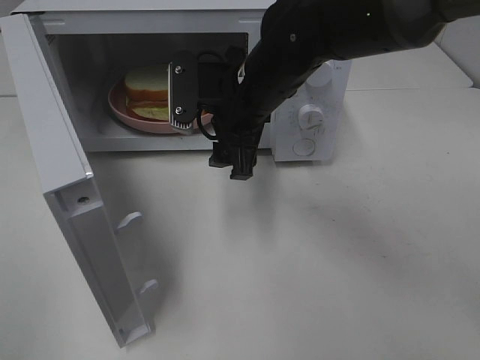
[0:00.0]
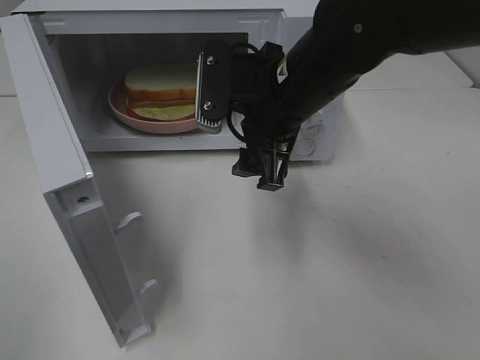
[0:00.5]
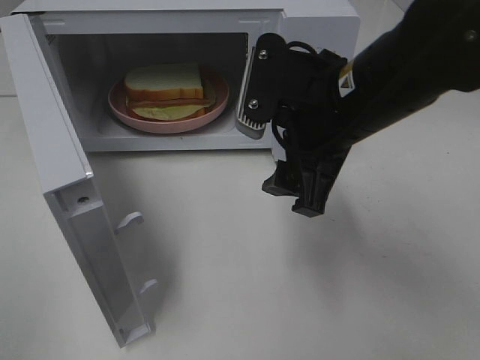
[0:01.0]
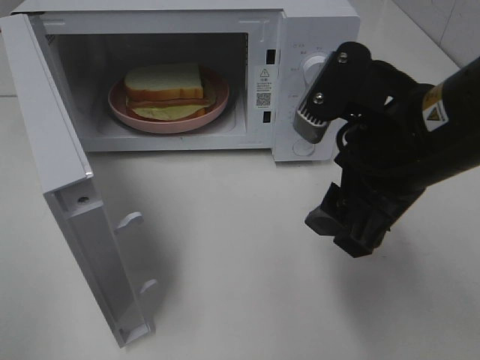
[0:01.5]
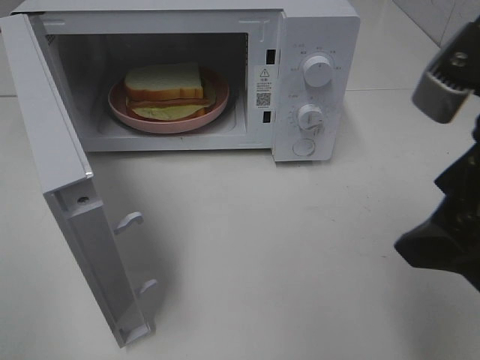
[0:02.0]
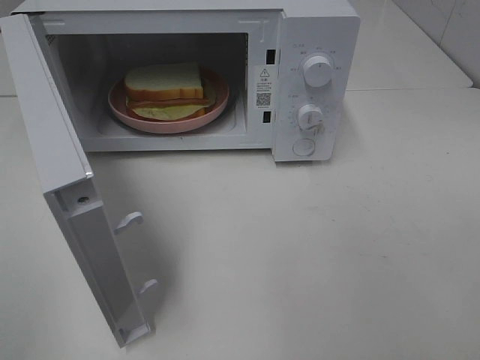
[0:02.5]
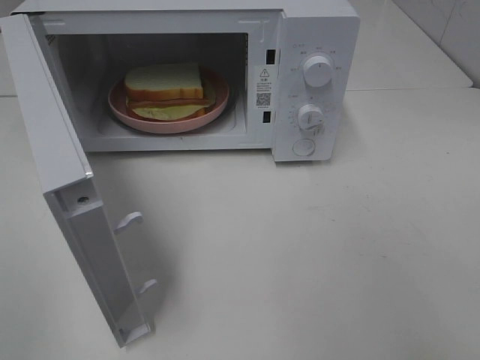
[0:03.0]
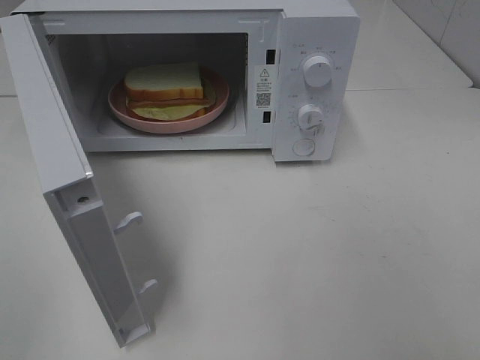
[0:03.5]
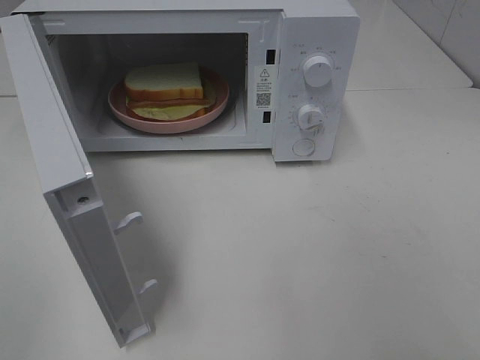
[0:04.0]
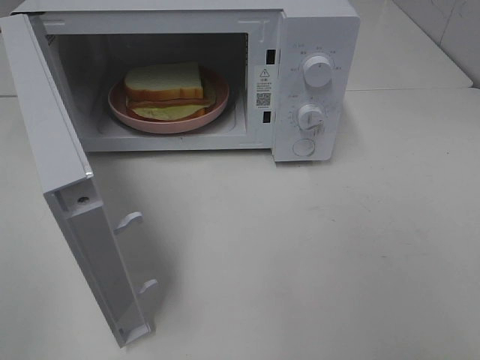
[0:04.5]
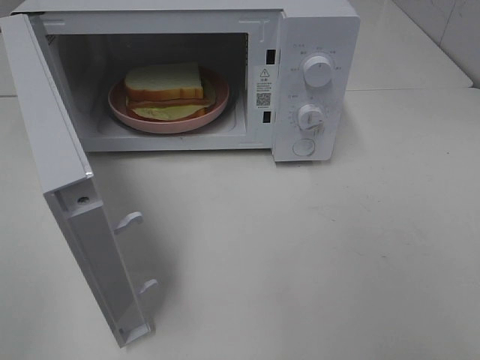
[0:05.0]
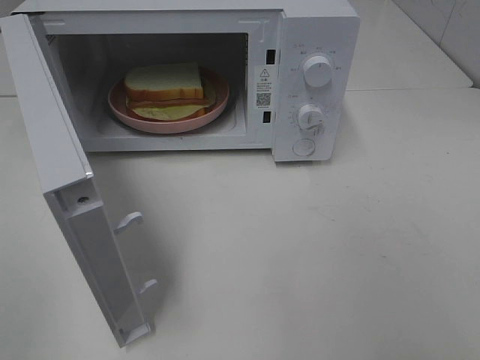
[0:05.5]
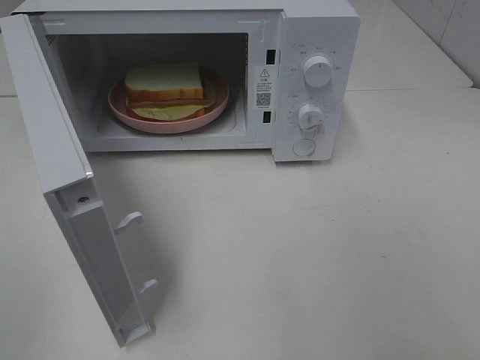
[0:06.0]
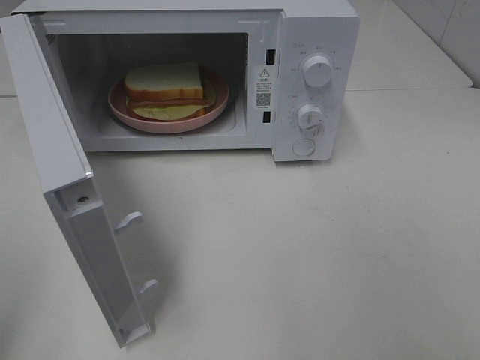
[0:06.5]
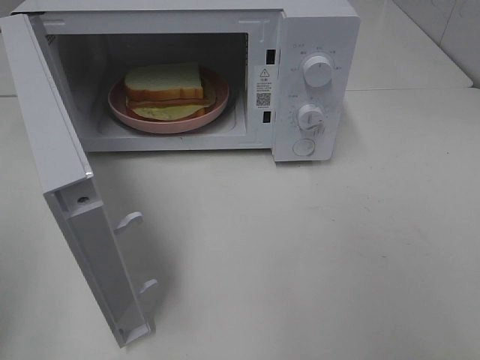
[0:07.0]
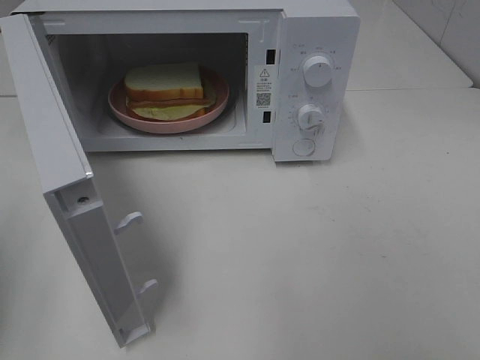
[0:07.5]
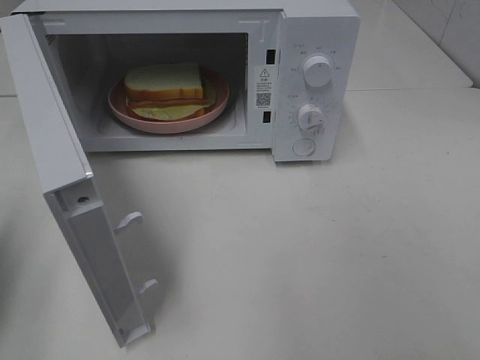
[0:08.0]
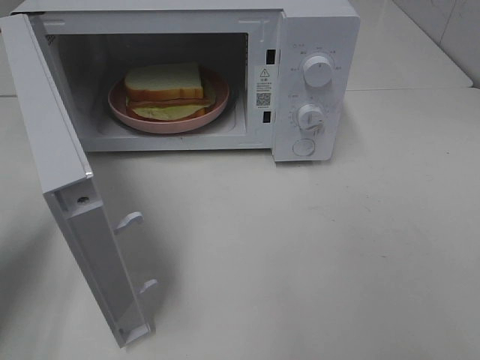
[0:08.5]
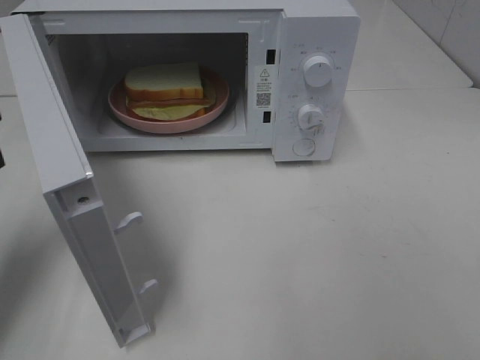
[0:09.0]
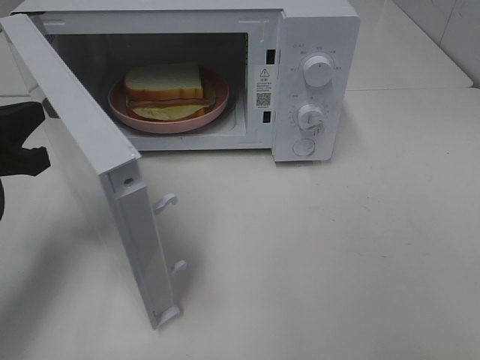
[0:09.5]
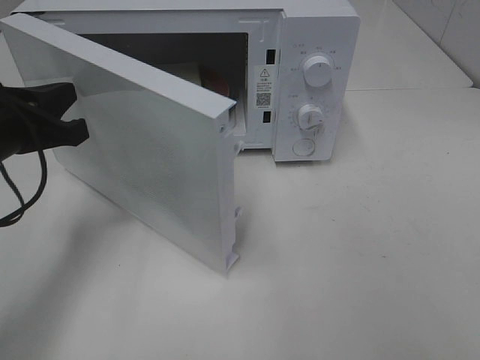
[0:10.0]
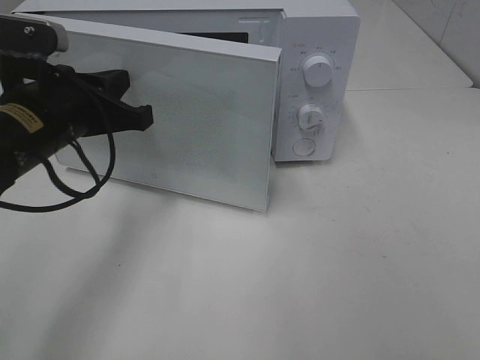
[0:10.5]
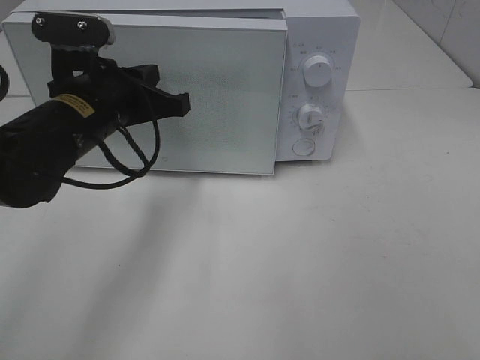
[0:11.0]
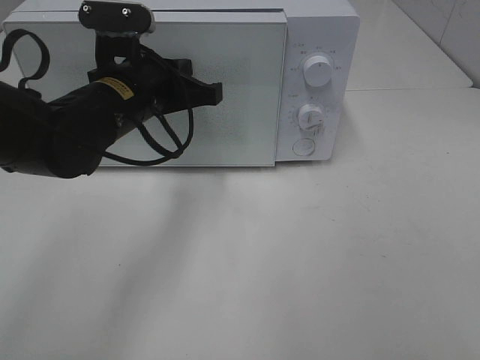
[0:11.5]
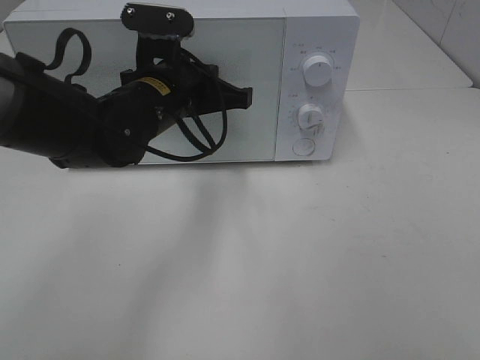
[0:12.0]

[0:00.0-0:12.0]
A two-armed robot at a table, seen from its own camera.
Task of the whole recording: Heat Sandwich.
0:00.0 to 0:02.0: The right gripper moves backward, to the right and upward, approximately 30 cm.
0:02.0 to 0:04.0: The right gripper travels backward and to the right by approximately 20 cm.
0:04.0 to 0:06.0: Both grippers stay about where they are.
0:06.0 to 0:08.0: The left gripper is displaced forward and downward by roughly 20 cm, and closes its fingers.
0:08.0 to 0:10.0: The left gripper goes some 15 cm to the right and forward.
0:10.0 to 0:12.0: The left gripper shifts some 15 cm to the right and forward.

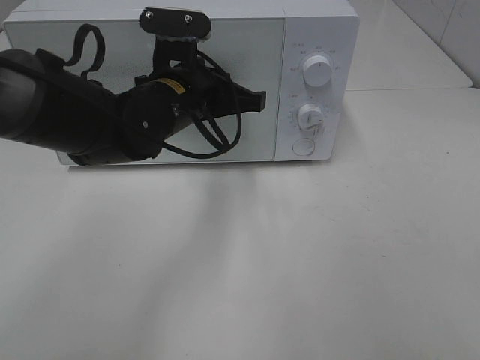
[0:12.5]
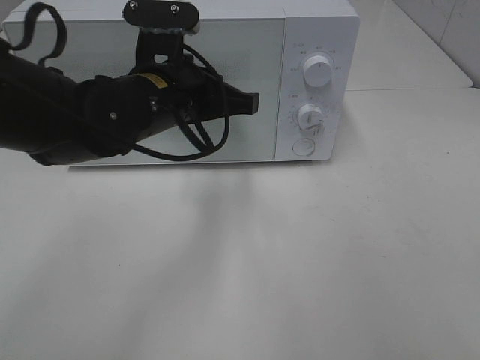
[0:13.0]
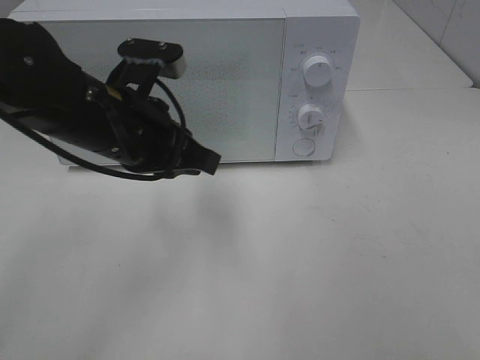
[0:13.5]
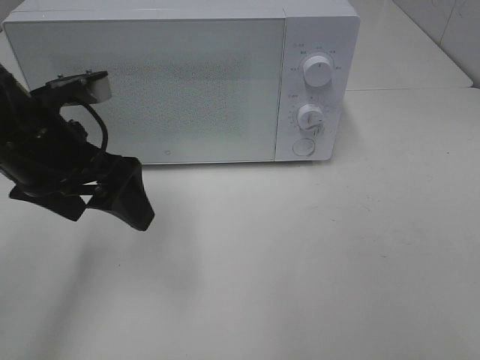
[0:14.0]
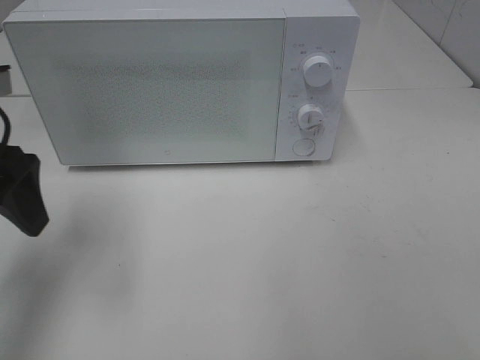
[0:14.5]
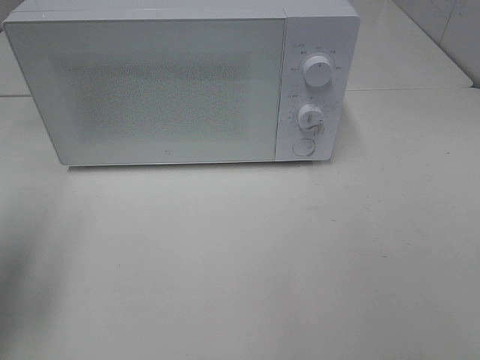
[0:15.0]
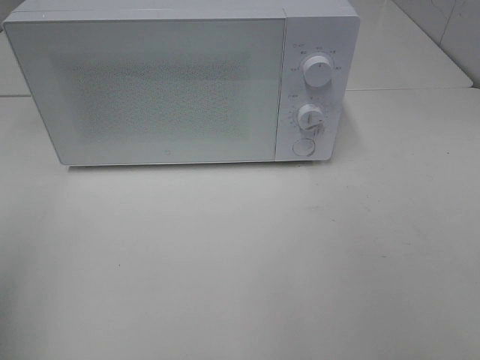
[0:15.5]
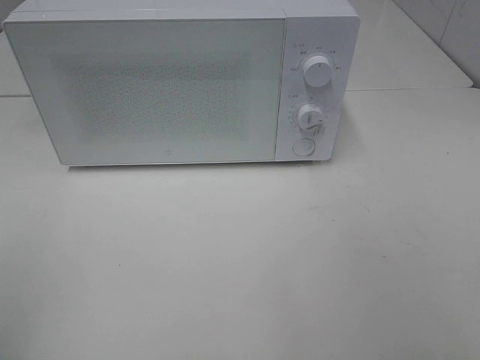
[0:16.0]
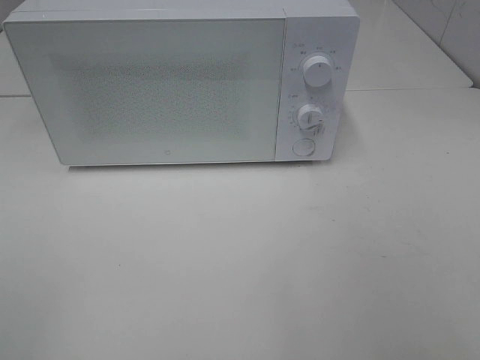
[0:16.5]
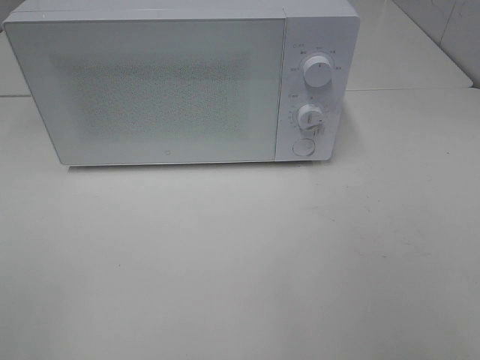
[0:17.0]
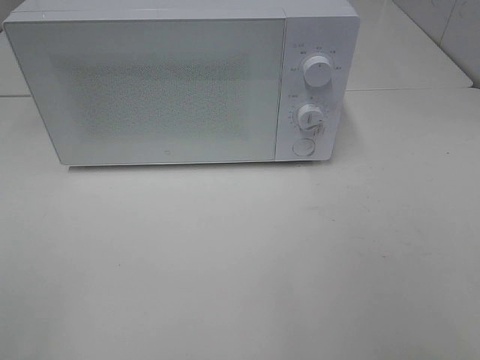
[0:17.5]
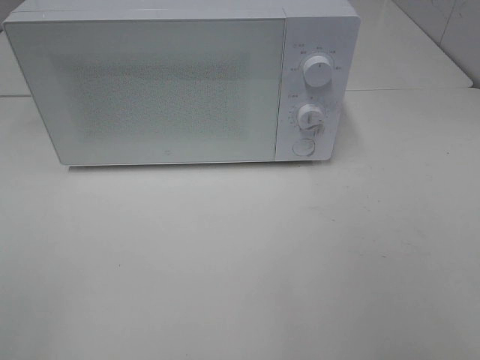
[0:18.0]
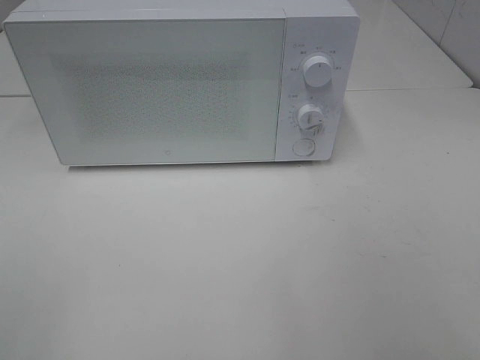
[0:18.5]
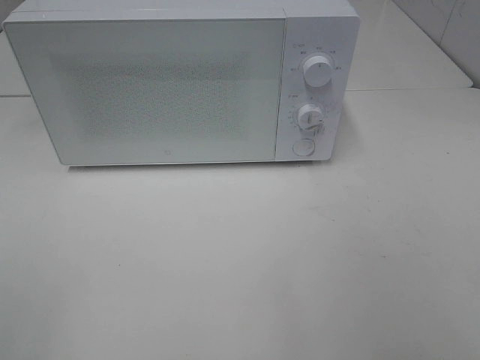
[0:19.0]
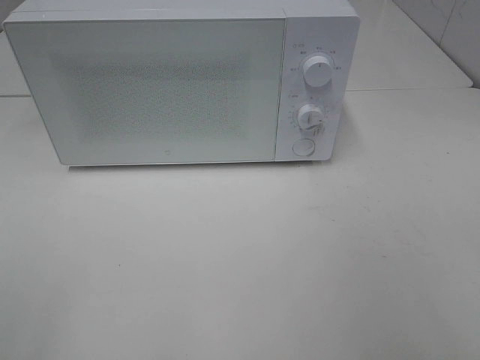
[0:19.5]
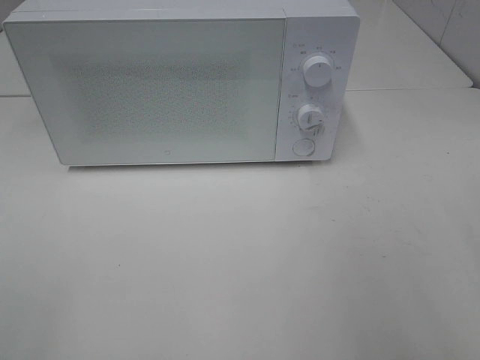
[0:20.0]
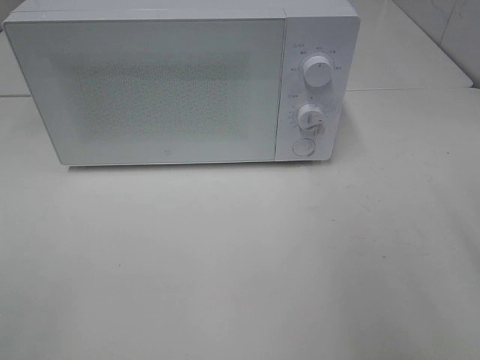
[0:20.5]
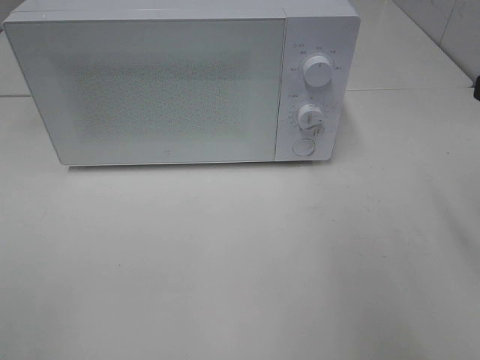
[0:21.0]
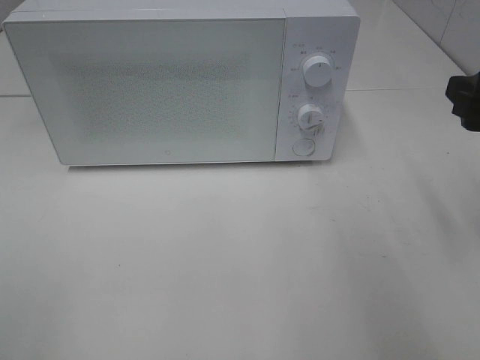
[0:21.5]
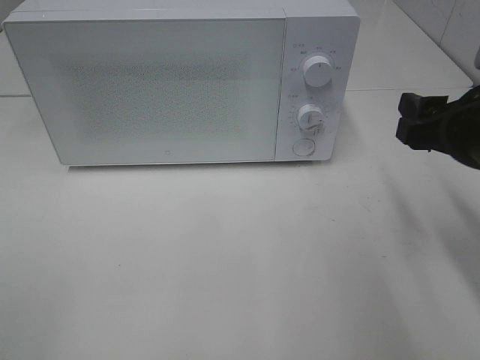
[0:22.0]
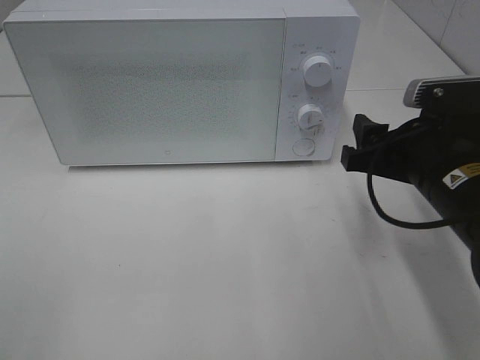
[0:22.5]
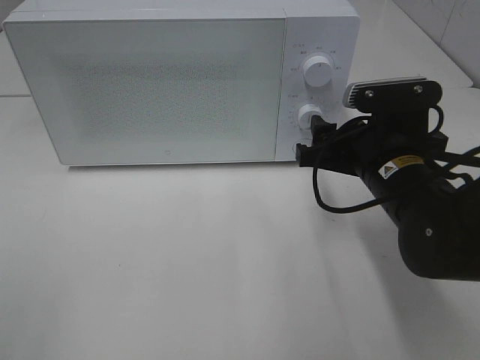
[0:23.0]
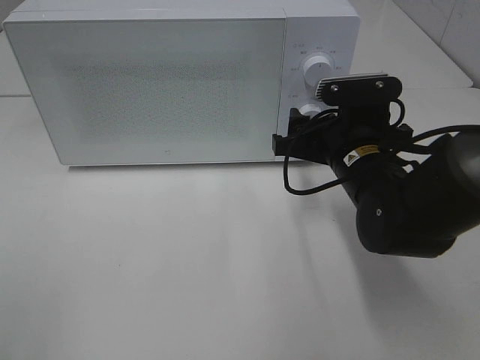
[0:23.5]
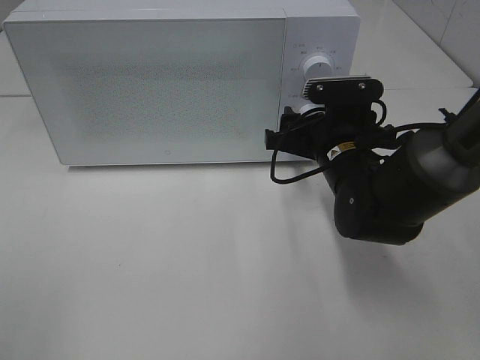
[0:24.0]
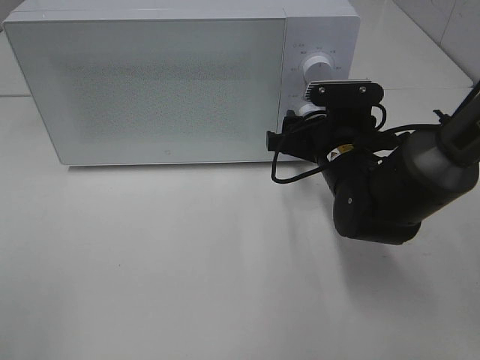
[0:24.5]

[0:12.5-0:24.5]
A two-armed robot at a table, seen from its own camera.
Task of the whole recording: Heat Sandwich.
0:12.5 to 0:14.5: The left gripper heads to the left and backward, covering roughly 20 cm, and opens up.
0:14.5 to 0:16.5: The left gripper is displaced backward by roughly 25 cm.
0:16.5 to 0:18.5: Both grippers stay put.
0:20.5 to 0:22.5: The right gripper shifts about 20 cm downward, forward and to the left.
0:22.5 to 0:24.5: The right gripper heads forward, to the left and downward, covering approximately 10 cm.

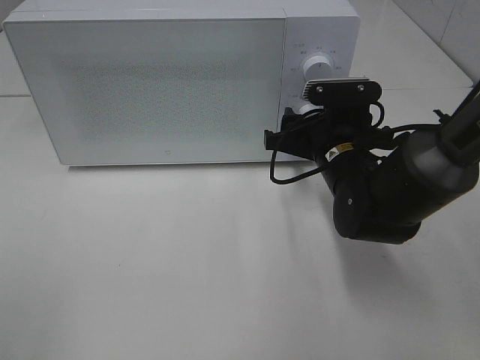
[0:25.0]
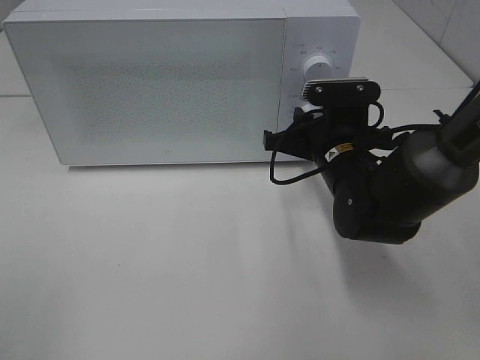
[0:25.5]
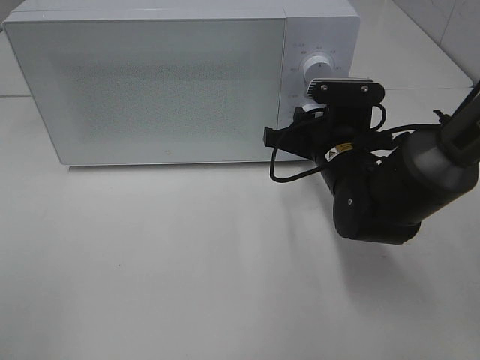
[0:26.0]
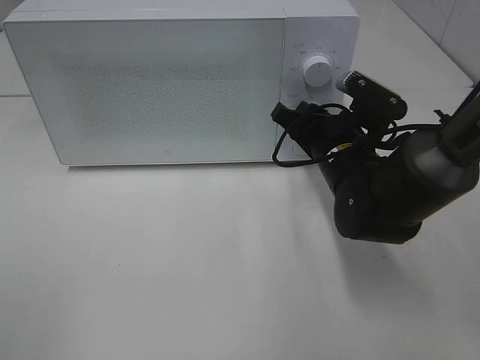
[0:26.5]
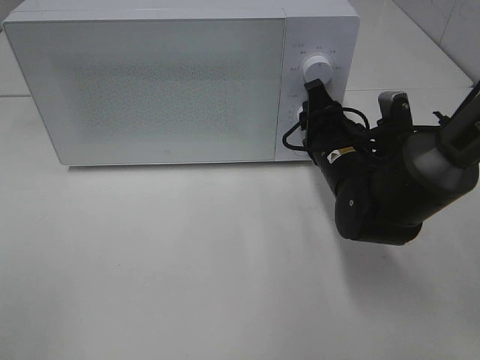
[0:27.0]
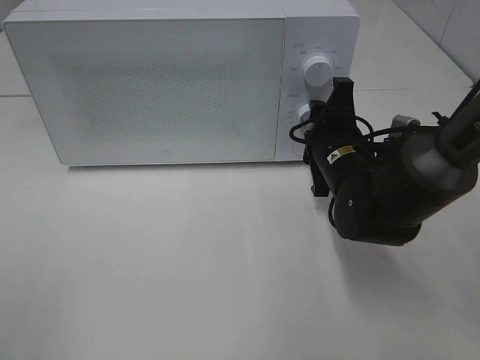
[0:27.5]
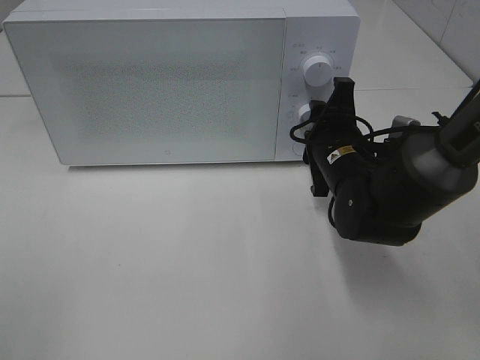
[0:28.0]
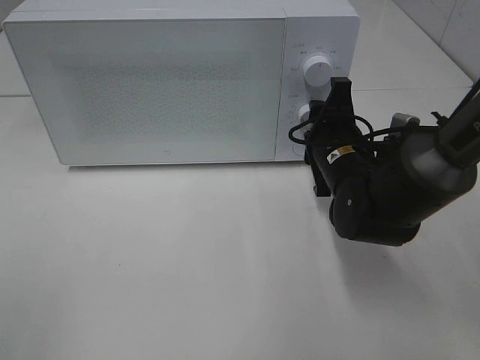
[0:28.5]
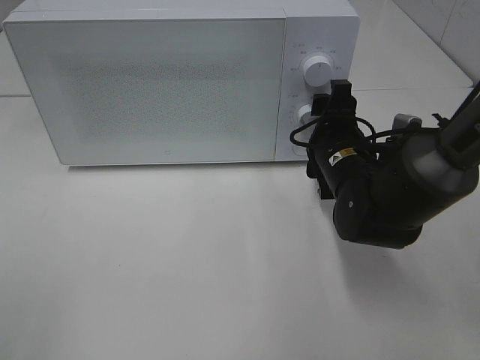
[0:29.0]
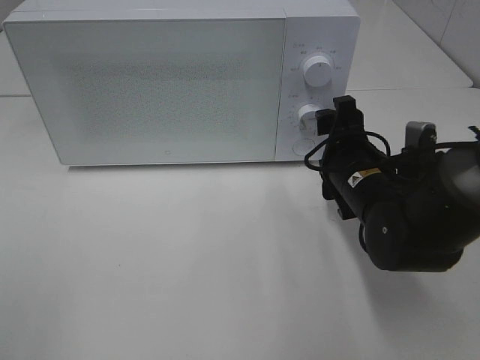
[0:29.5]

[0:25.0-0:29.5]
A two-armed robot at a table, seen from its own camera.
Task of the whole recording: Heat Sandwich.
0:27.0 to 0:29.5: The right gripper opens its fingers.
